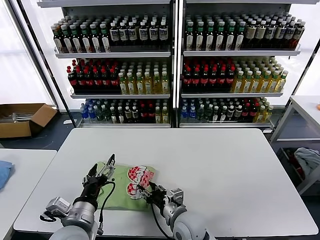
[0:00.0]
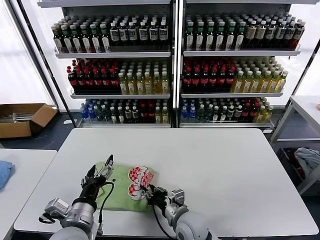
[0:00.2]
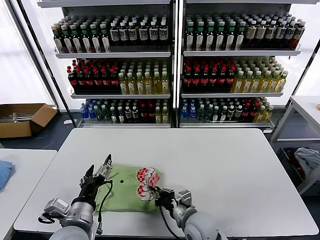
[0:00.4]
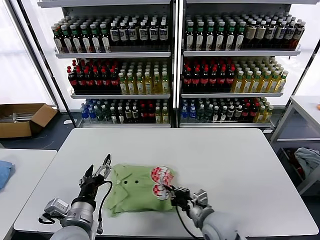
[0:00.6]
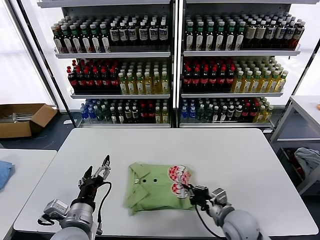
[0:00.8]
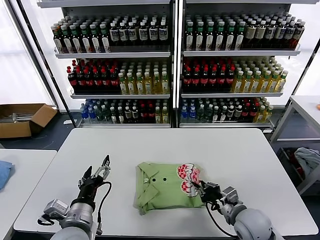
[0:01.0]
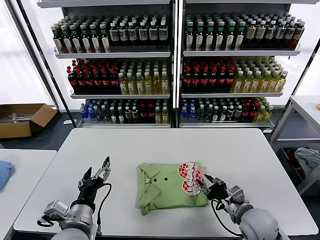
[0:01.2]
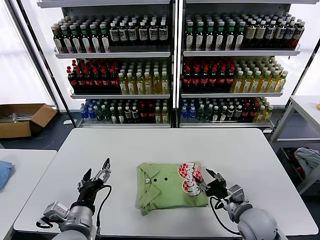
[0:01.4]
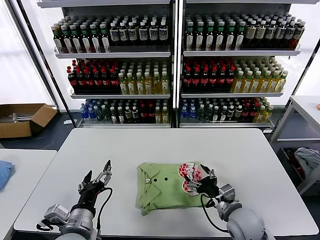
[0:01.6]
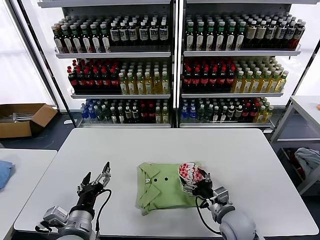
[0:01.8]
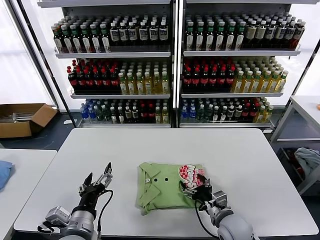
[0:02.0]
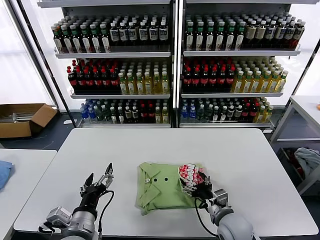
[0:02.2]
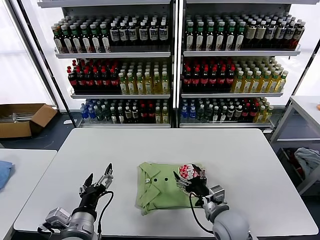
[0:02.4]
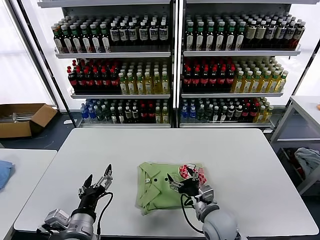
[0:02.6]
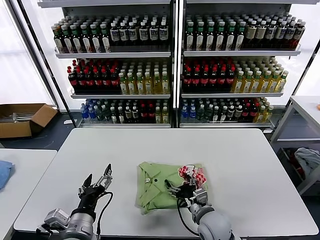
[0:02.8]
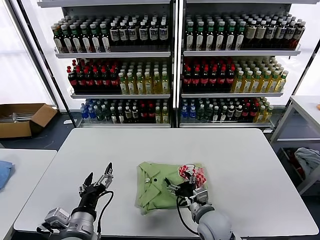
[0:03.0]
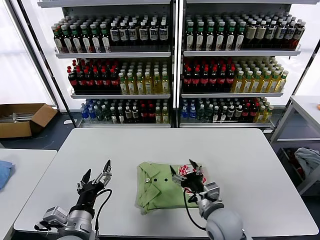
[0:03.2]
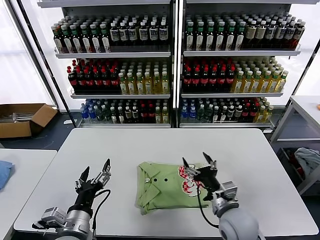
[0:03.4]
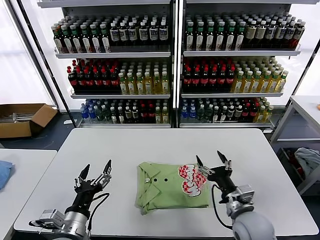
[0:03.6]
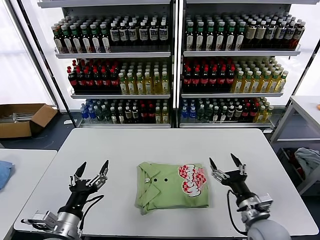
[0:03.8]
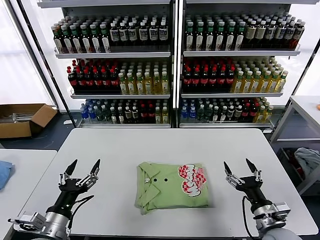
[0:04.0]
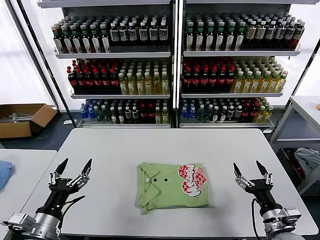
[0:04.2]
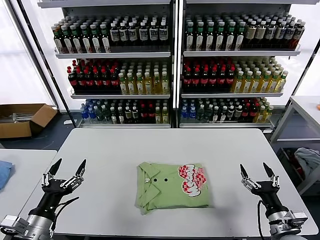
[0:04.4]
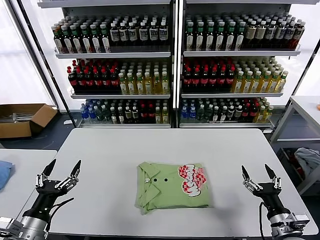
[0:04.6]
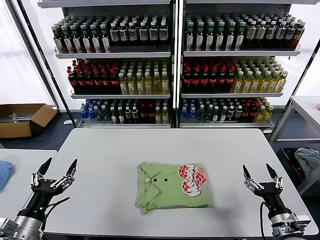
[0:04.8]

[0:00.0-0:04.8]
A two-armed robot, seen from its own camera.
Task of the whole recording: fold and organize the clothes.
Step, 0:00.0 to 0:03.0: Drag the clothes to the center of the table.
0:00.0 to 0:01.6: The right gripper travels to the right by roughly 15 cm, and closes, then opens again.
0:01.6 to 0:03.2: The right gripper is displaced to the left by roughly 10 cm.
0:03.2 to 0:04.8: The right gripper travels to the right and backward by some 20 cm. Meanwhile the left gripper goes roughly 15 cm to the left.

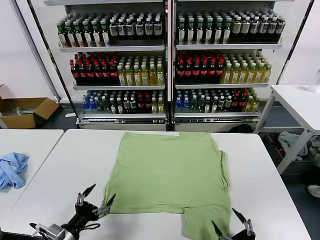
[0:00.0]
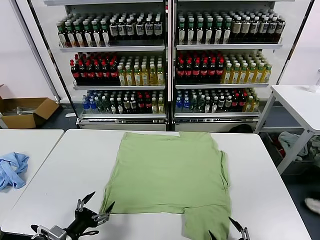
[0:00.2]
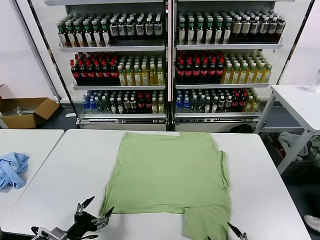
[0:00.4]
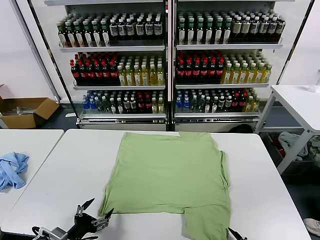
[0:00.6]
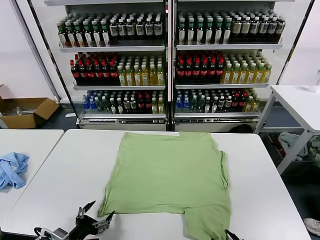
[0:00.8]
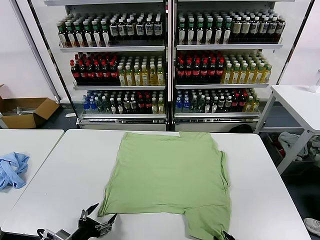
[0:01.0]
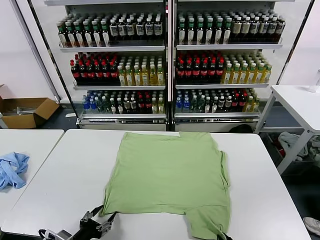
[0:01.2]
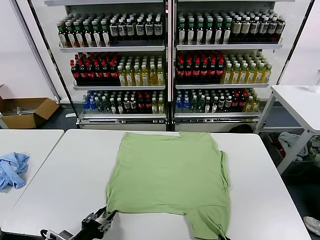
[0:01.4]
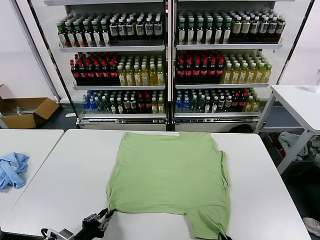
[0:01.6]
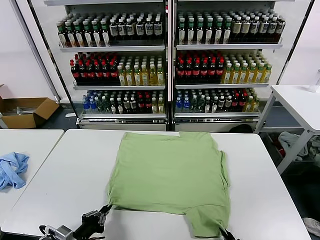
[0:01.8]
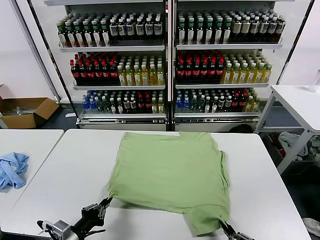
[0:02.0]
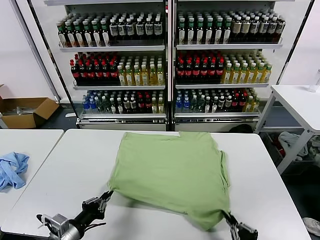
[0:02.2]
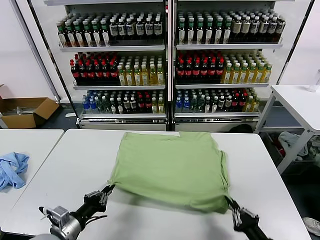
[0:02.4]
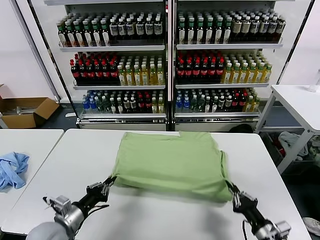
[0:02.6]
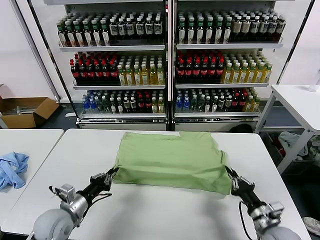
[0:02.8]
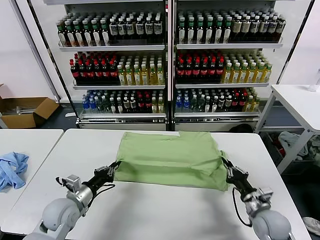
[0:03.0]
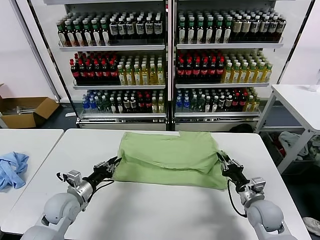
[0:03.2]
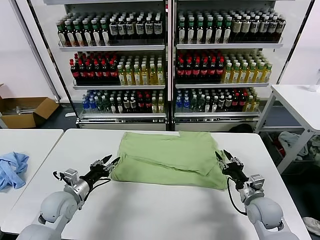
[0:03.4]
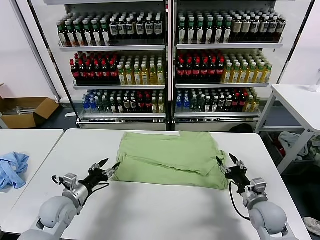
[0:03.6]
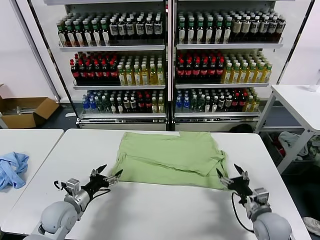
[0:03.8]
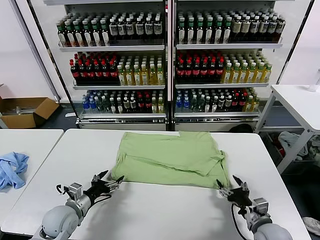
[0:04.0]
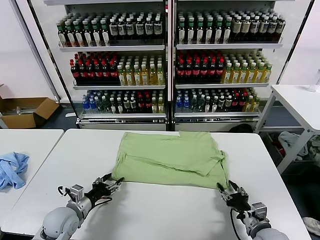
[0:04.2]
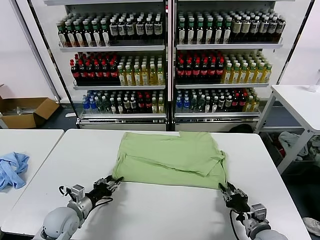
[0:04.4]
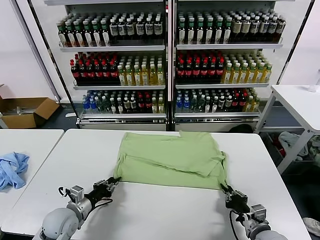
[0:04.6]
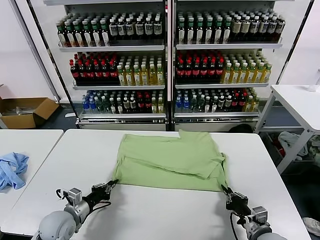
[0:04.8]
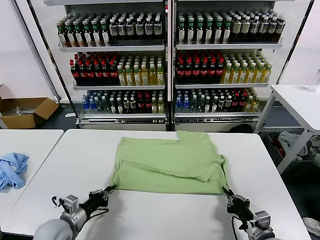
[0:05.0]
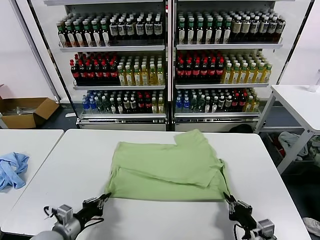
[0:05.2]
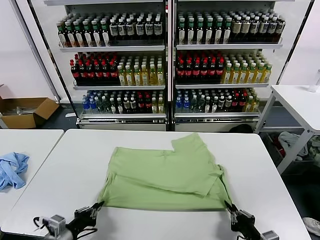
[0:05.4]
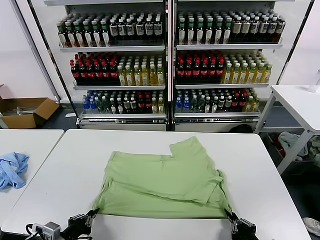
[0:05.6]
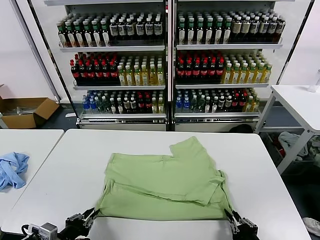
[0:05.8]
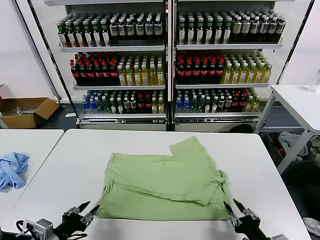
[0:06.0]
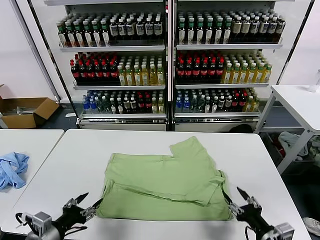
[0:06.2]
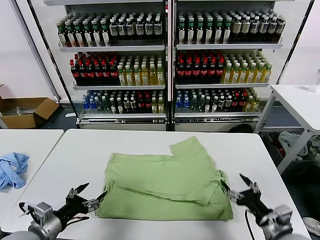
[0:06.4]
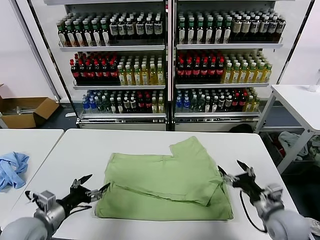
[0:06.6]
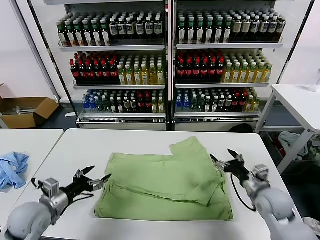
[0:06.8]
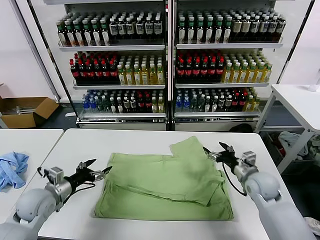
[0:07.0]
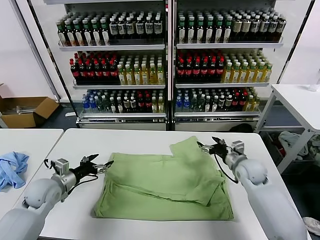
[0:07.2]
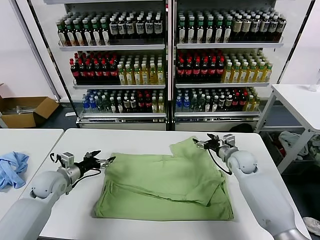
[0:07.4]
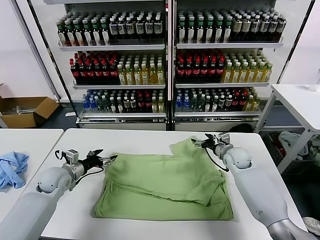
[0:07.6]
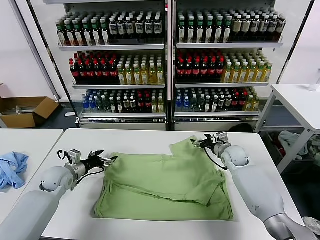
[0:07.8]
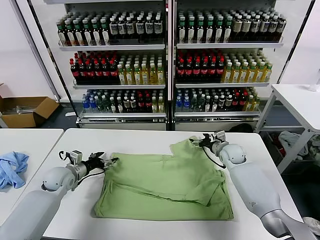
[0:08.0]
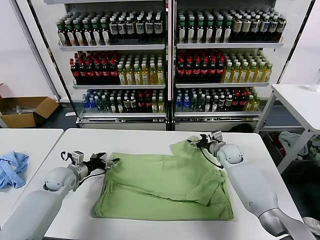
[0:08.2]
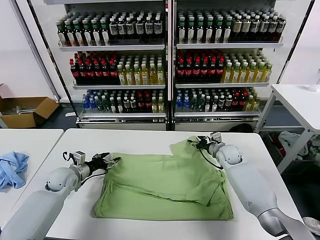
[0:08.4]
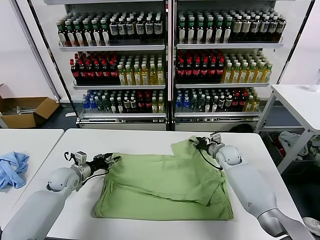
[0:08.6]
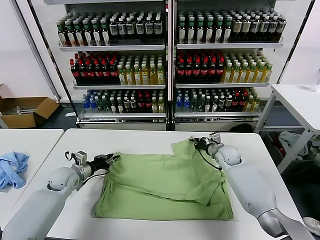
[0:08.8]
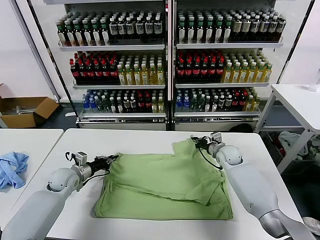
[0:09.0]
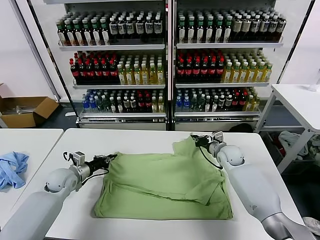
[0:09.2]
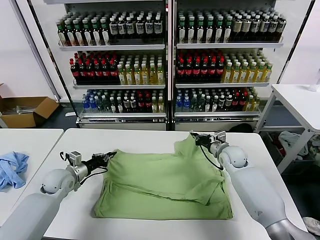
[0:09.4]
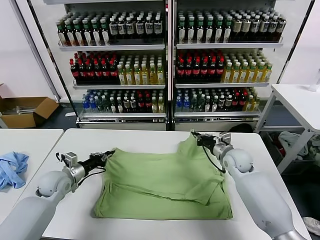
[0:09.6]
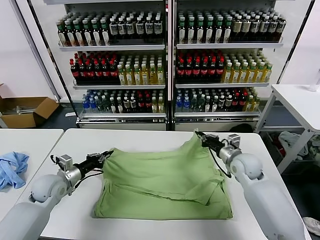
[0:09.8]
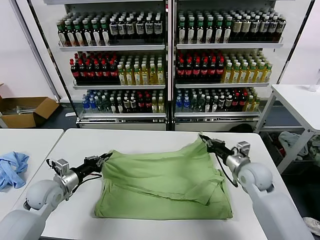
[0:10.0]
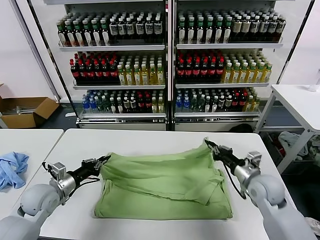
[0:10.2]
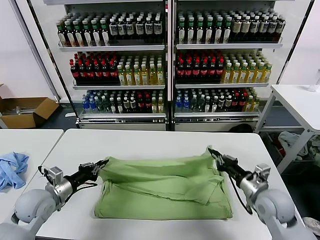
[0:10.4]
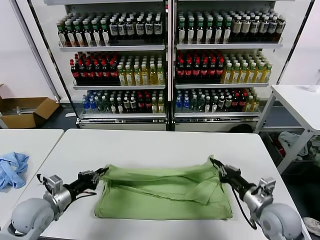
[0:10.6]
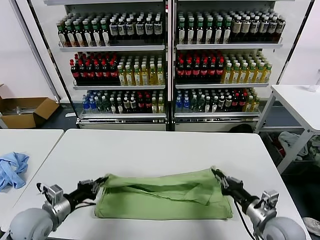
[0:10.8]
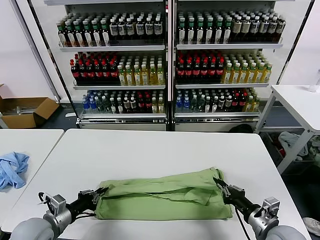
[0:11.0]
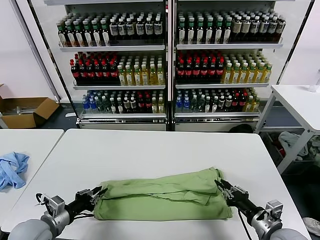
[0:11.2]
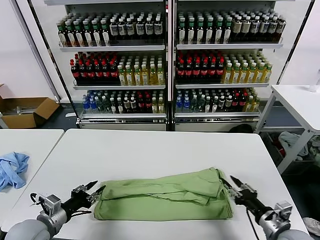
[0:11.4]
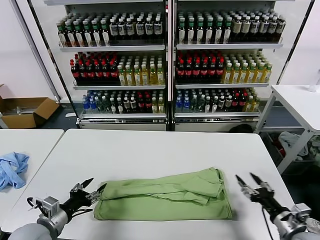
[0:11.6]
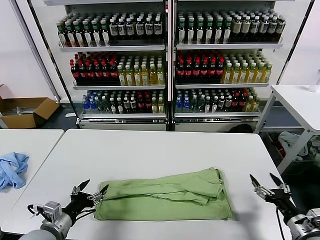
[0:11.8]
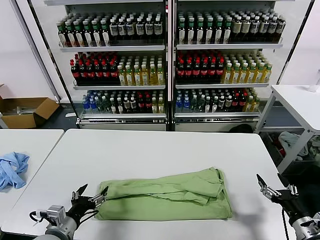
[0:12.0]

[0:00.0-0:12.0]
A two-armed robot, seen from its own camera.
Task of the whole recording: fold and organize the clothes.
Step, 0:00.0 to 0:01.6: use both grippers simultaneously to clamp the lower edge of the clothing fabric.
Step, 0:02.0 to 0:03.2: use both grippers to drag the lower edge of the fabric forward and fold it over the upper edge.
Step, 0:03.4 to 0:05.8: Drag the clothes downward with both gripper.
Step, 0:06.0 to 0:09.0: use both grippers simultaneously to clamp the upper edge of the clothing fabric.
Step, 0:09.2 to 0:11.2: use both grippers to drag the upper edge of the fabric backward and fold it over the lower edge.
0:01.6 to 0:03.0: The left gripper goes approximately 15 cm forward. Meanwhile the right gripper travels forward by approximately 25 cm.
0:03.0 to 0:04.4: The right gripper moves backward, approximately 10 cm, and opens, then closes again. Meanwhile the left gripper opens, then closes again.
0:04.4 to 0:06.0: The right gripper heads backward and upward, covering roughly 10 cm, and opens its fingers. Meanwhile the left gripper moves backward and upward, some 15 cm, and closes, then opens again.
0:06.0 to 0:07.6: Both grippers move forward, roughly 30 cm. The left gripper opens its fingers.
0:07.6 to 0:09.0: The left gripper closes up; the right gripper closes up.
0:09.0 to 0:10.4: The right gripper moves backward, approximately 25 cm; the left gripper goes roughly 15 cm backward and upward.
0:10.4 to 0:12.0: The right gripper moves to the right and backward, roughly 15 cm, and opens its fingers; the left gripper heads backward and to the right, covering some 15 cm, and opens its fingers.

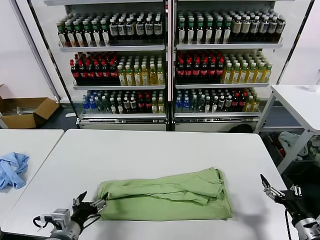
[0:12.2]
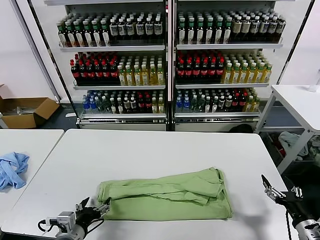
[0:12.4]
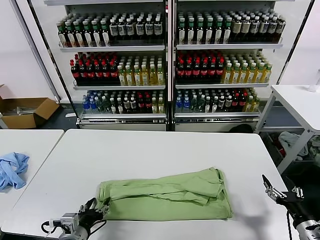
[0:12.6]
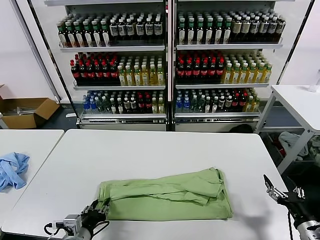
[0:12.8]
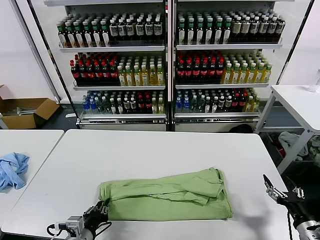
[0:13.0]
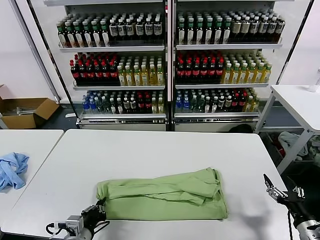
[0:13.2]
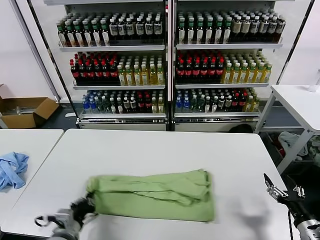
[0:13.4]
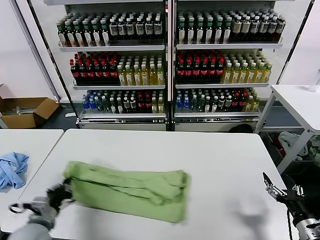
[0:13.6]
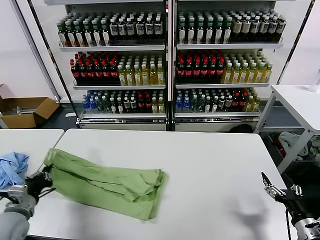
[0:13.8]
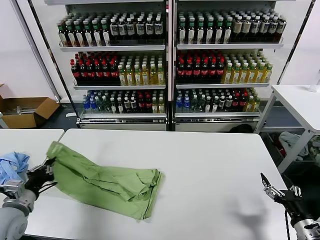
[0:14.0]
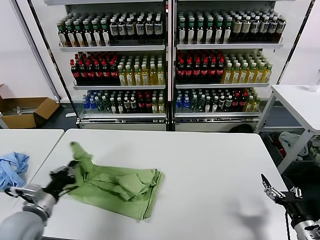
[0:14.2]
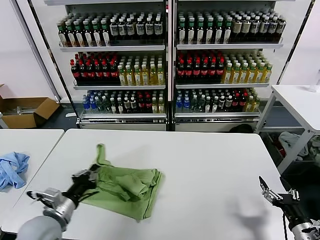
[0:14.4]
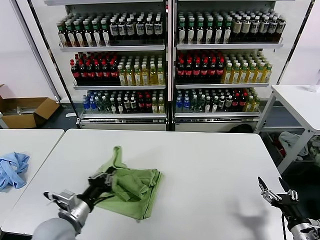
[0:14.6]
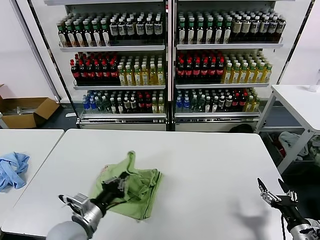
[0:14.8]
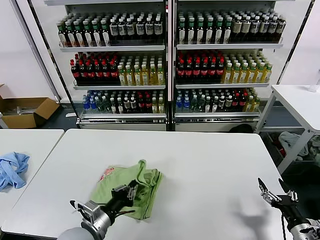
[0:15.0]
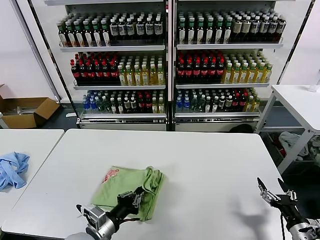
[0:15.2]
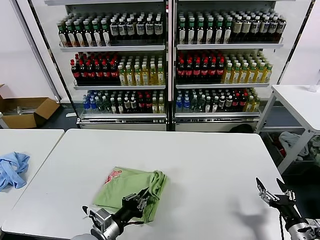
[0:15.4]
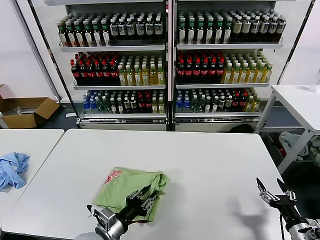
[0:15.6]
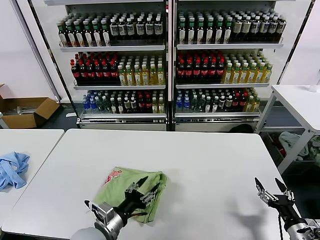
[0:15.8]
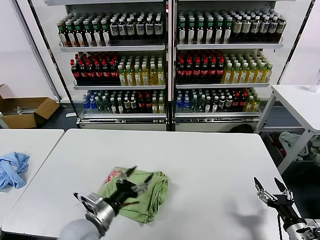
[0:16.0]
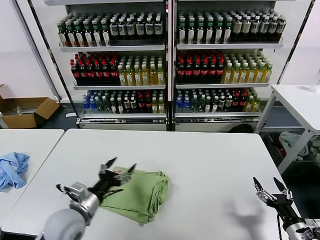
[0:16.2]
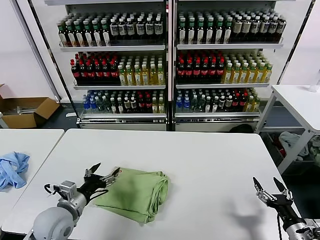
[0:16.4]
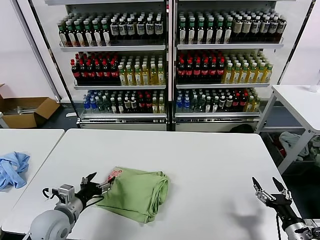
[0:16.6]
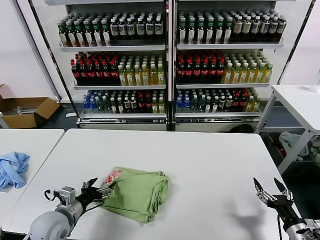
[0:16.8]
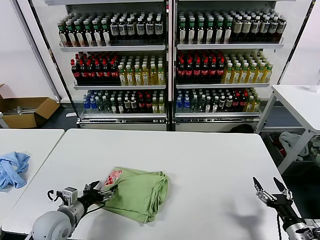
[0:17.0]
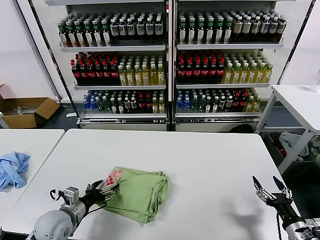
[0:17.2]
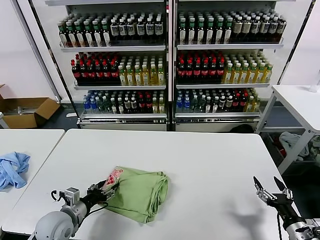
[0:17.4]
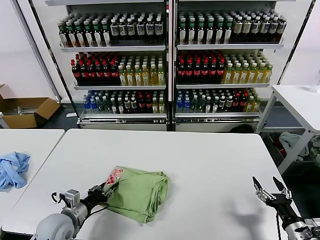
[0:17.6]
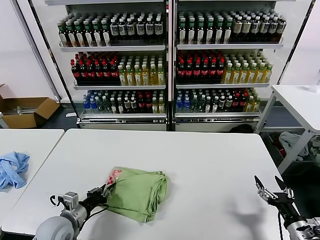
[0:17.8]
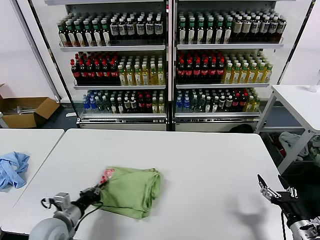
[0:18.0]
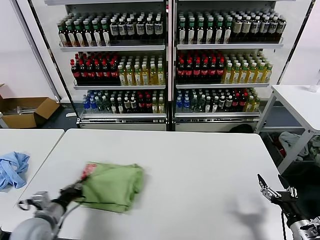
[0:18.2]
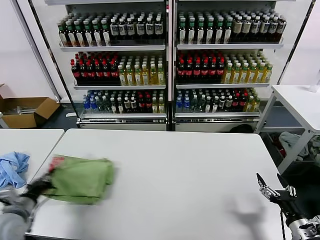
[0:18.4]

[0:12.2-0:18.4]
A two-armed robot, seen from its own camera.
Task of the whole recording: fold and organize the clothes.
Step, 0:12.2 to 0:13.0: use the left gripper to clamp the left edge of the fabric.
Step, 0:13.2 to 0:15.6: use the left gripper to drag the left edge of the fabric to the left and folds it over the right edge.
0:12.2 to 0:13.8: The left gripper moves to the left and forward, roughly 15 cm, and closes its fingers.
0:13.8 to 0:15.4: The left gripper travels to the right by approximately 25 cm.
0:15.4 to 0:16.8: The left gripper goes approximately 15 cm to the left and forward, and opens its fingers.
0:16.8 to 0:18.4: The left gripper moves to the left, approximately 10 cm, and closes its fingers.
